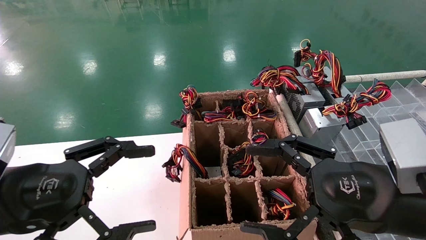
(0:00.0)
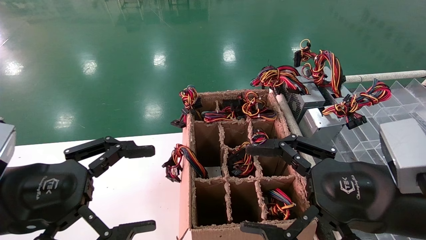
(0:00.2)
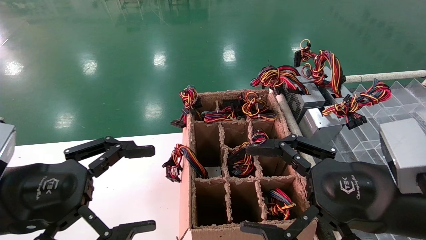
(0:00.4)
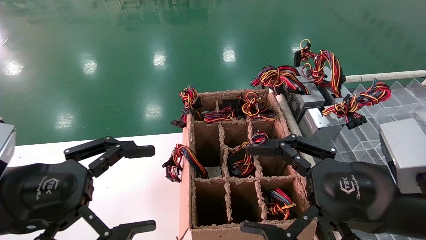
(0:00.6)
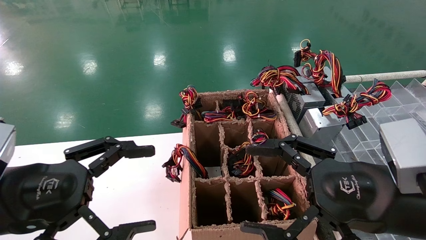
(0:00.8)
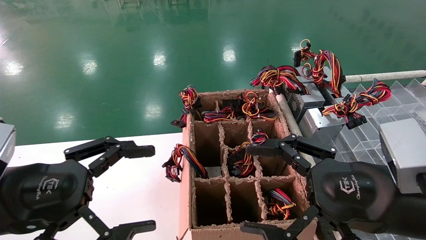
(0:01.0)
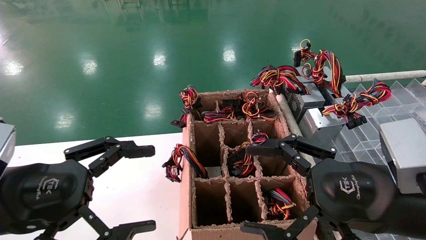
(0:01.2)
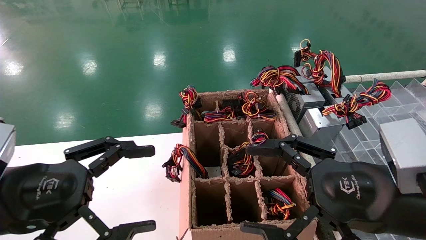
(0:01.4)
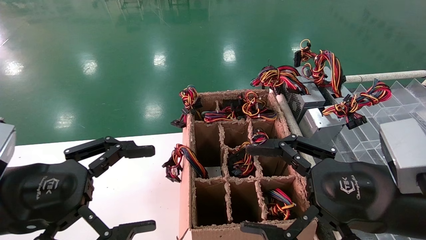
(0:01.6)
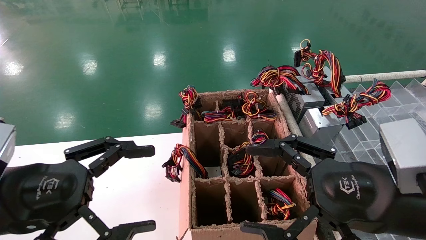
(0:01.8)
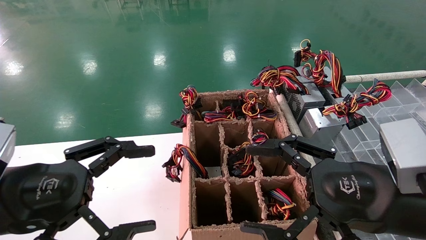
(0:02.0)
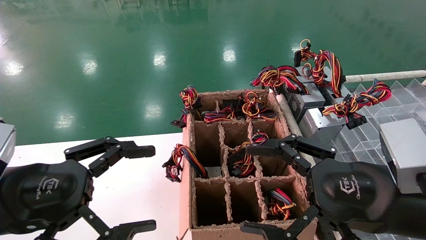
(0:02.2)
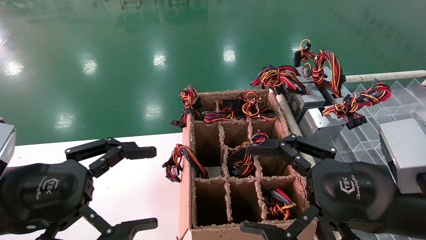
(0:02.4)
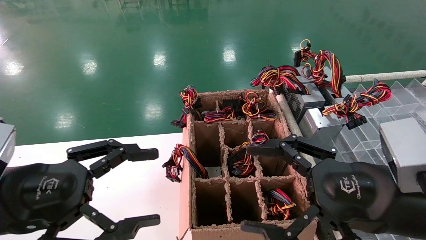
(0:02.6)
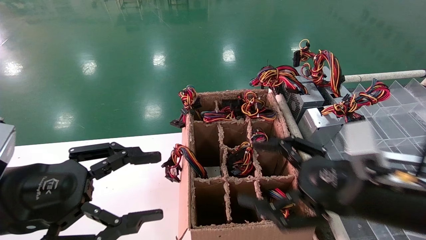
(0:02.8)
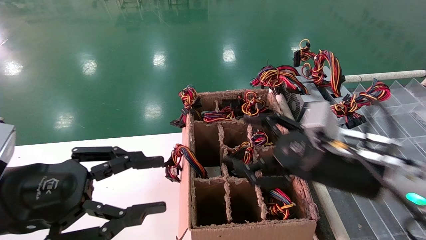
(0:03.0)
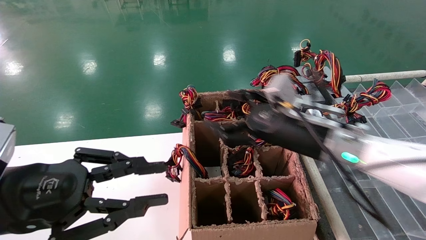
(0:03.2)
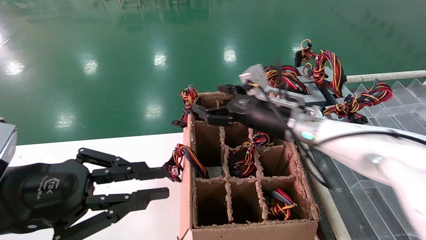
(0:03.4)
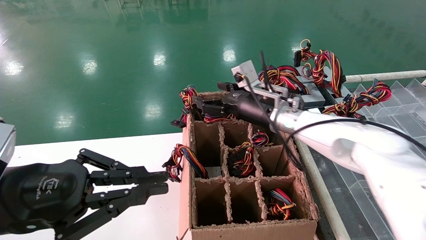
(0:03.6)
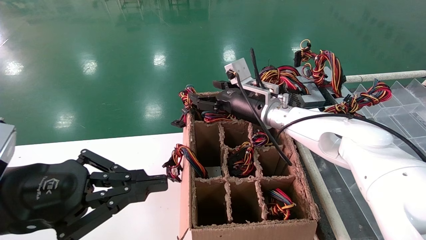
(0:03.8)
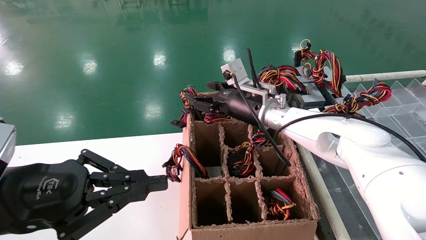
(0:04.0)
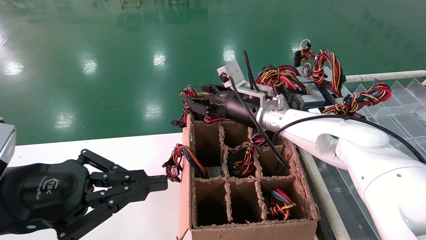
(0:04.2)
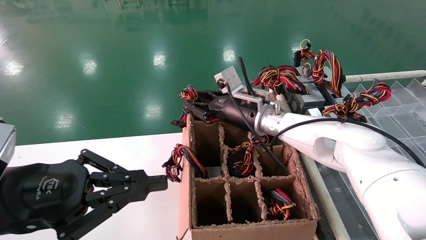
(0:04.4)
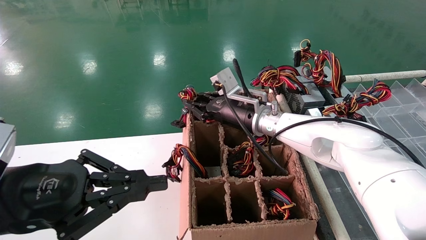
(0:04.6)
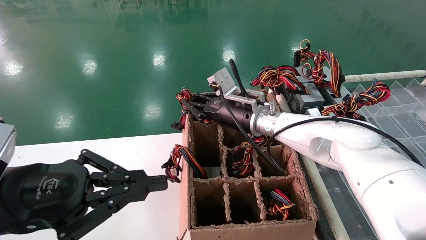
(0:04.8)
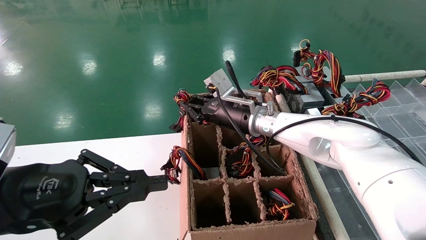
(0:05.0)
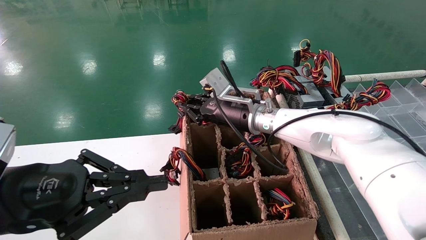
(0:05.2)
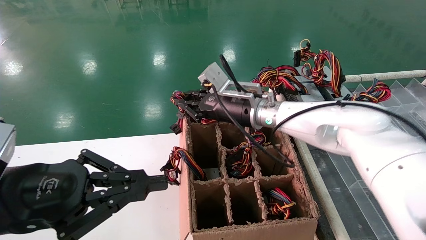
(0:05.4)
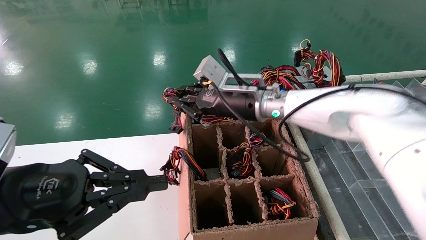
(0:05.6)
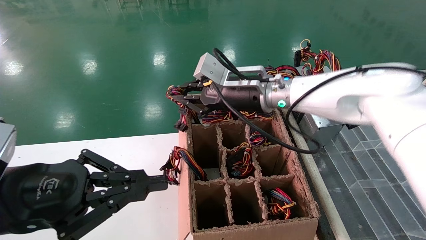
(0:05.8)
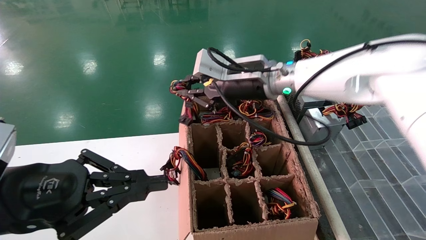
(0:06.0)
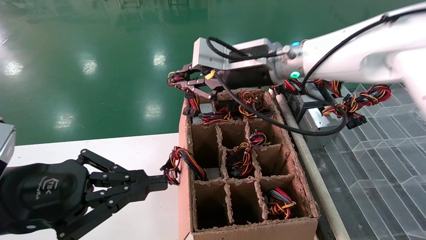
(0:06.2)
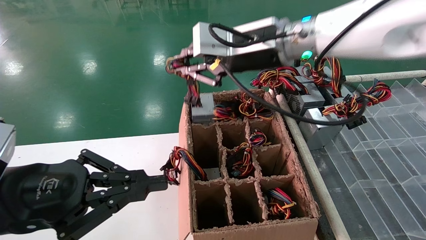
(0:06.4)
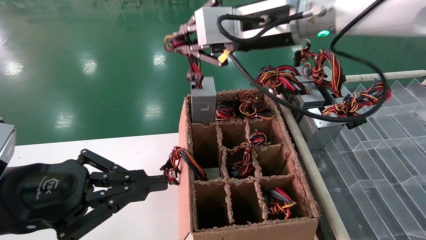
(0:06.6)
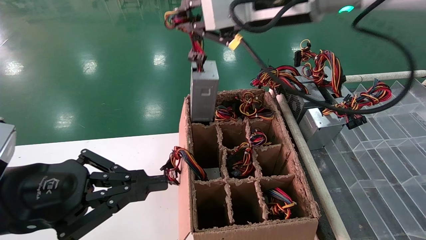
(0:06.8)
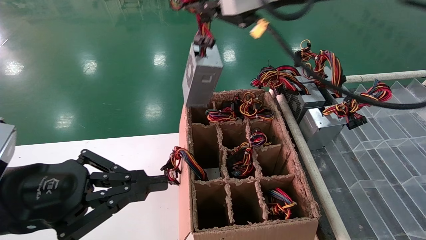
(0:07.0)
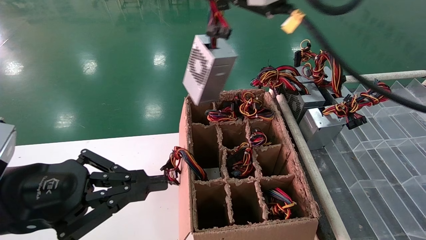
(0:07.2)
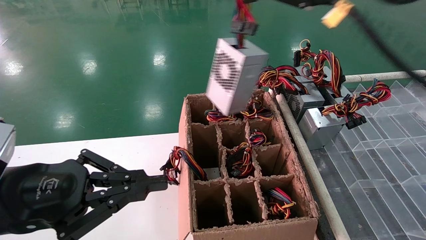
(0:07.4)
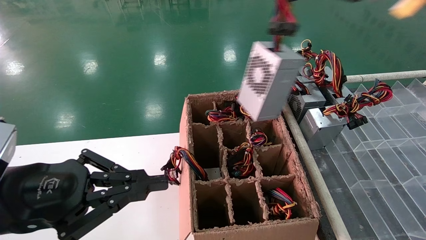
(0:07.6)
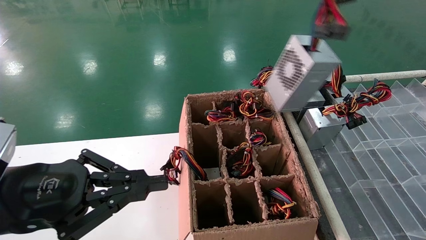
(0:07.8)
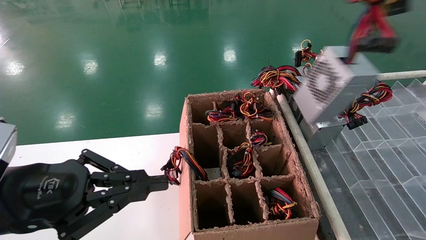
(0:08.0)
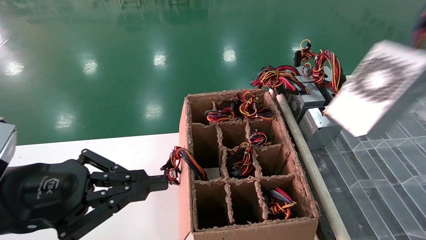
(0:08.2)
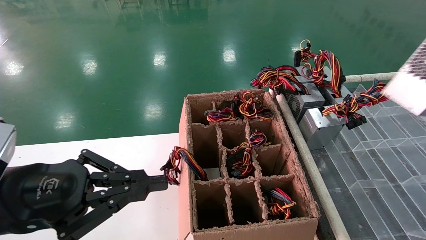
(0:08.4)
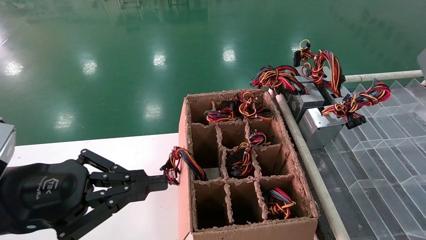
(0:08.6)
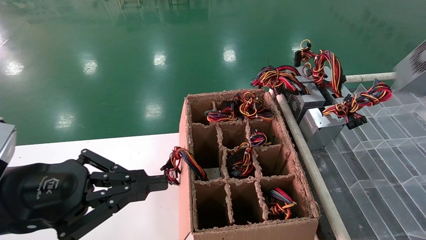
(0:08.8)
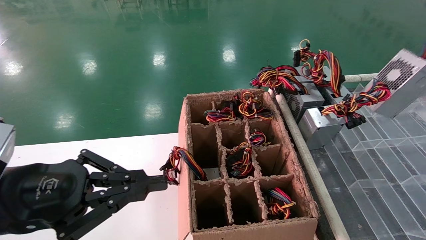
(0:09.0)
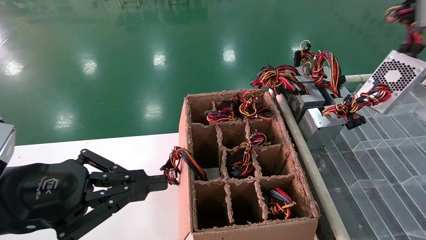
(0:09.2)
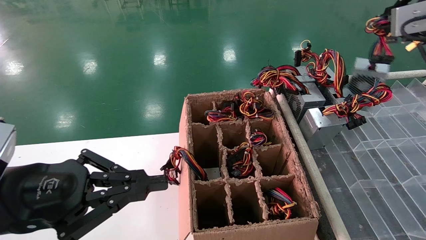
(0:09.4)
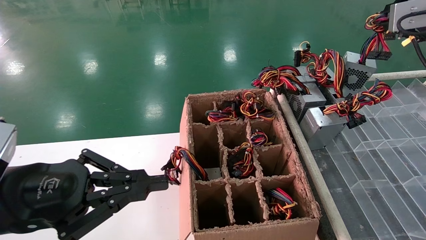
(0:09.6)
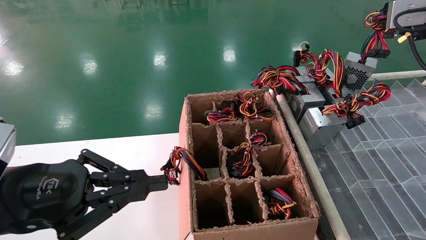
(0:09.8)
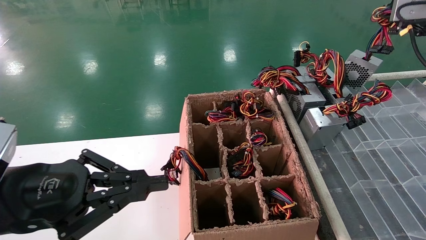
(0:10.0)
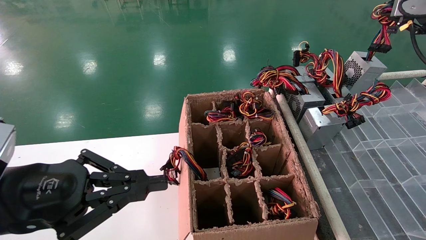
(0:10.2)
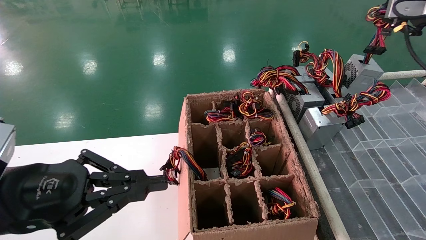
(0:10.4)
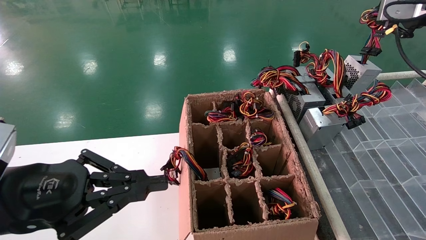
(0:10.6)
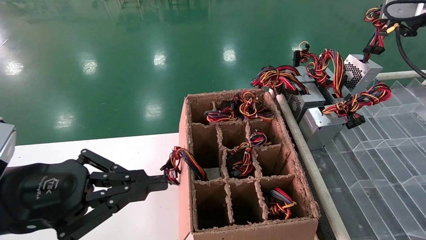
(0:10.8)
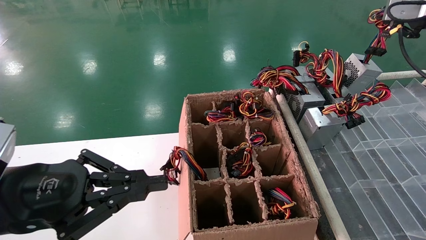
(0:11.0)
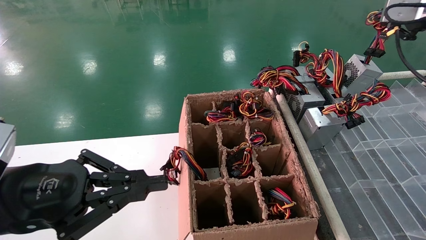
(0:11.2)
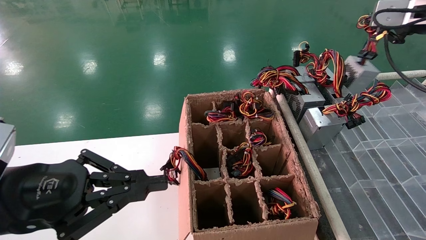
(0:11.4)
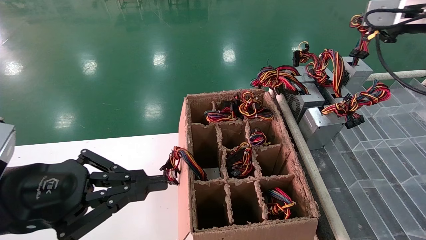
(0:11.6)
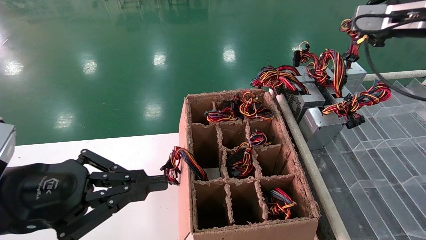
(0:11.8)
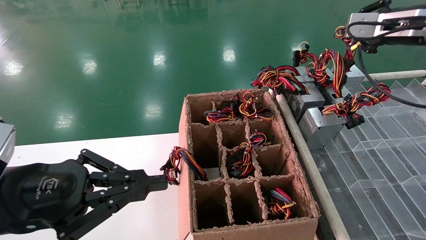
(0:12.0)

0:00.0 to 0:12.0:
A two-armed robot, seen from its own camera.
Step, 0:03.0 to 0:05.0: Grab the main unit power supply from the containment box.
0:00.0 to 0:01.6: Both grippers stay put.
0:01.6 to 0:03.0: The right gripper shifts roughly 10 cm forward, while the left gripper closes.
0:03.0 to 0:04.4: The left gripper closes. Meanwhile the right gripper heads forward and to the left, covering about 20 cm, and closes its fingers.
0:04.4 to 0:06.0: The right gripper travels upward and backward by approximately 10 cm, and closes.
0:06.0 to 0:07.6: The right gripper travels backward, upward and to the right by about 35 cm.
0:07.6 to 0:09.0: The right gripper goes approximately 20 cm to the right.
0:09.0 to 0:10.4: The right gripper heads forward, covering roughly 15 cm.
0:10.4 to 0:12.0: The right gripper changes place by approximately 5 cm.

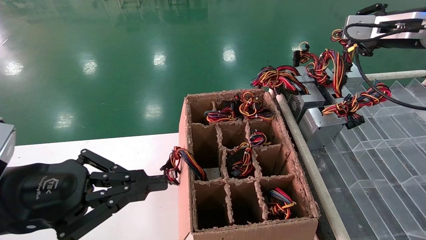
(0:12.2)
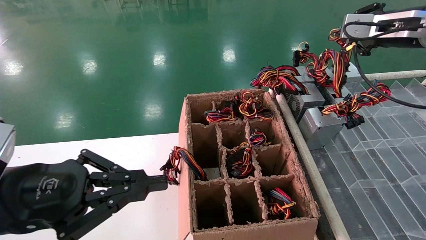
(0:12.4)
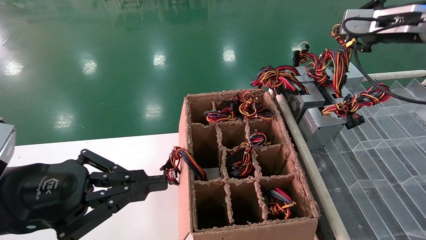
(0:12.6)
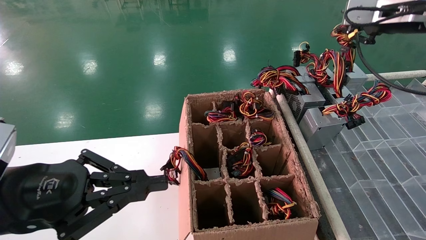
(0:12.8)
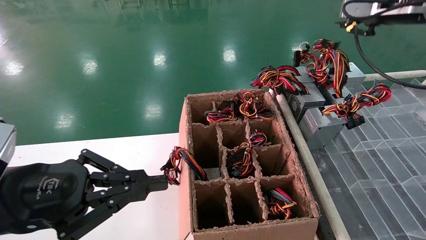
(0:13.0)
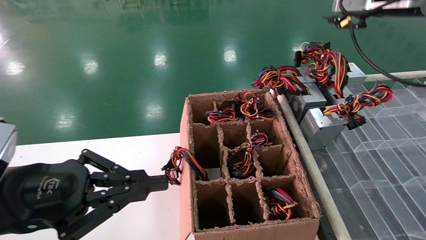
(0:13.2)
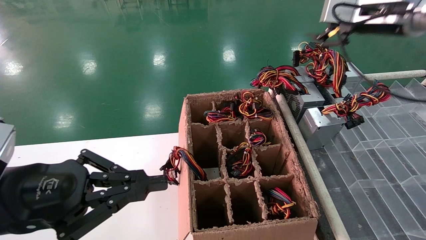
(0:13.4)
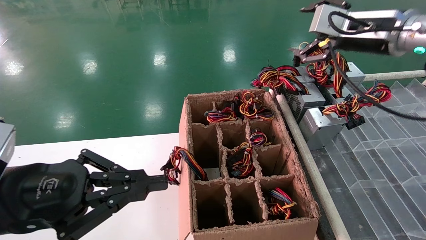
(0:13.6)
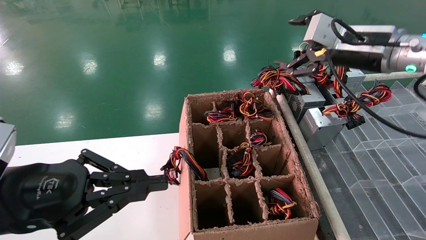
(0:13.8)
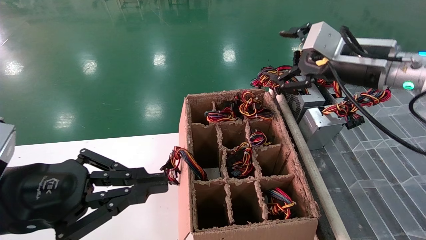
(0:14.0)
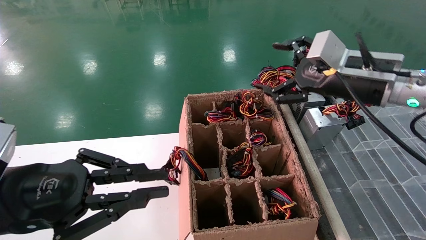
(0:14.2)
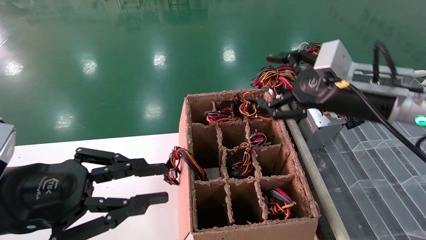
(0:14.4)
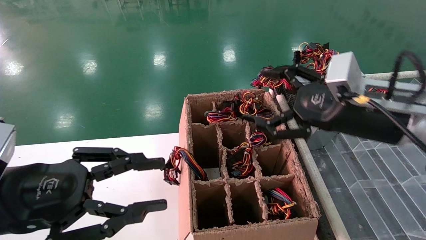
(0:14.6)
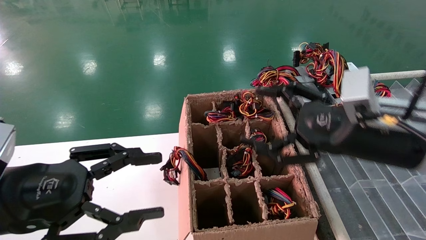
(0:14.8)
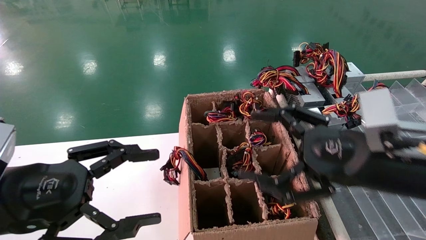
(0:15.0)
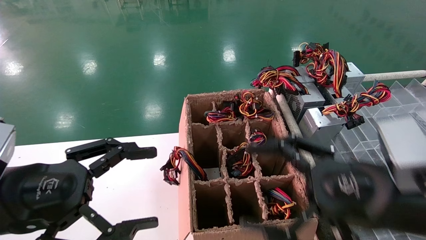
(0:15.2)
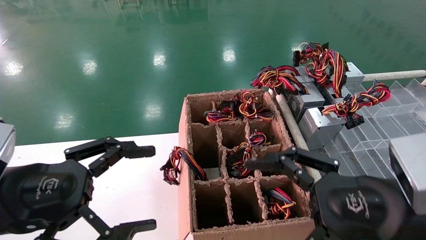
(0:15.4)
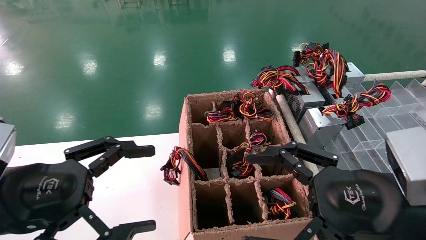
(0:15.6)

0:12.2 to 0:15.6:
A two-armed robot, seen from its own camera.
0:12.2 to 0:13.8: The right gripper moves to the left, about 10 cm, and opens up.
0:13.8 to 0:15.6: The right gripper is displaced backward and downward by roughly 25 cm. Meanwhile the left gripper opens.
